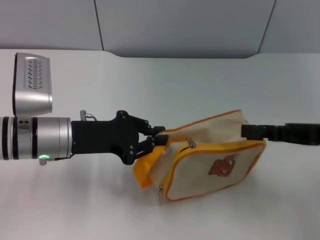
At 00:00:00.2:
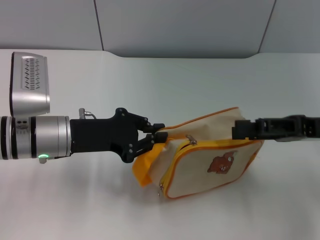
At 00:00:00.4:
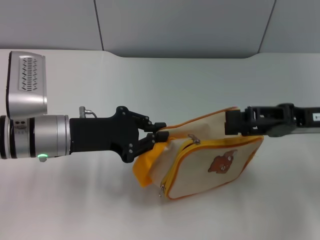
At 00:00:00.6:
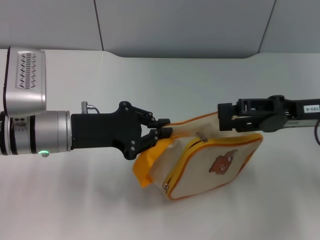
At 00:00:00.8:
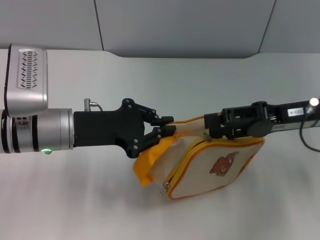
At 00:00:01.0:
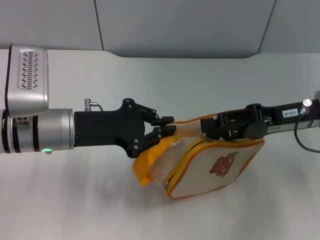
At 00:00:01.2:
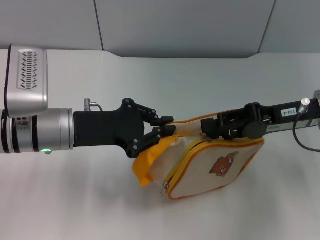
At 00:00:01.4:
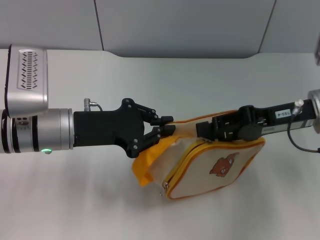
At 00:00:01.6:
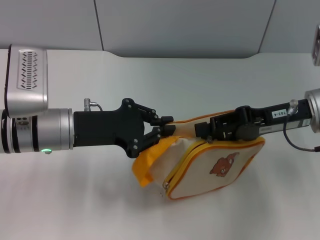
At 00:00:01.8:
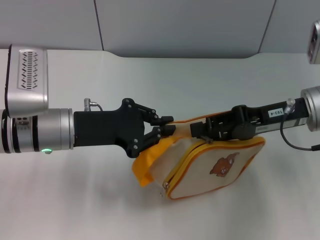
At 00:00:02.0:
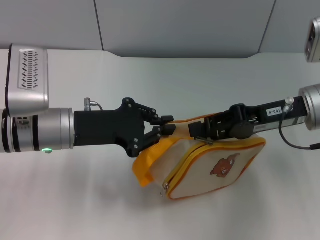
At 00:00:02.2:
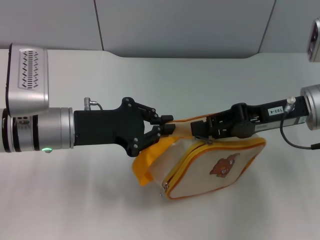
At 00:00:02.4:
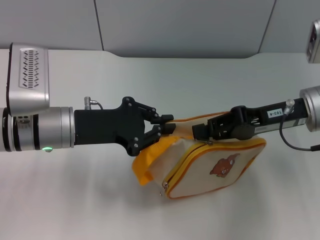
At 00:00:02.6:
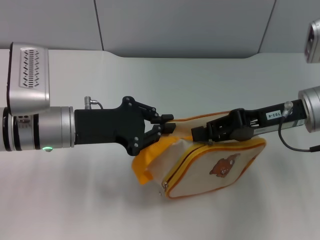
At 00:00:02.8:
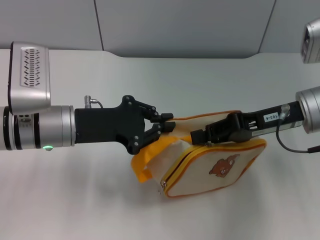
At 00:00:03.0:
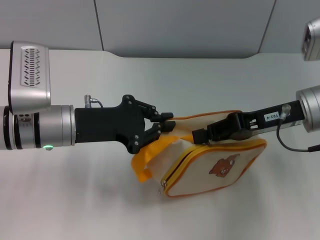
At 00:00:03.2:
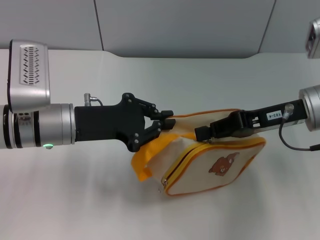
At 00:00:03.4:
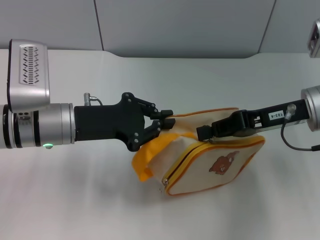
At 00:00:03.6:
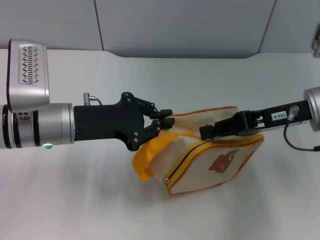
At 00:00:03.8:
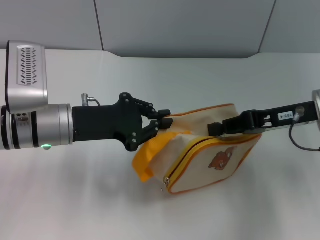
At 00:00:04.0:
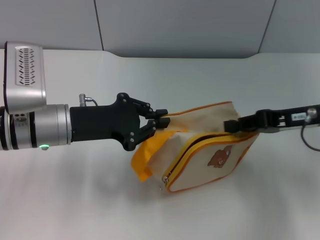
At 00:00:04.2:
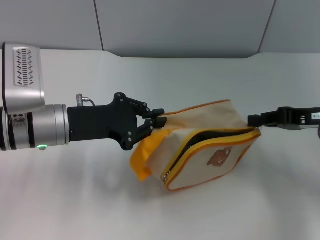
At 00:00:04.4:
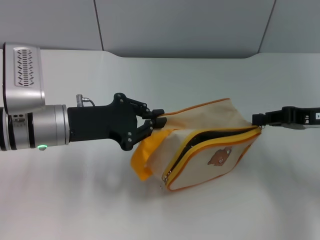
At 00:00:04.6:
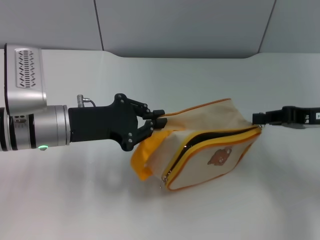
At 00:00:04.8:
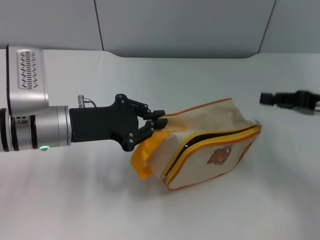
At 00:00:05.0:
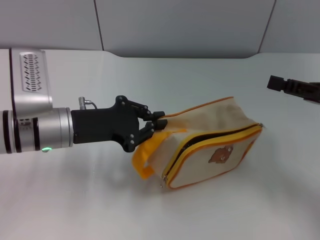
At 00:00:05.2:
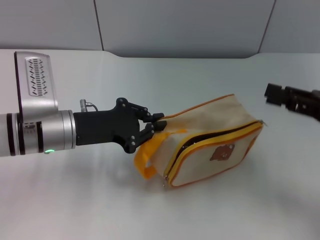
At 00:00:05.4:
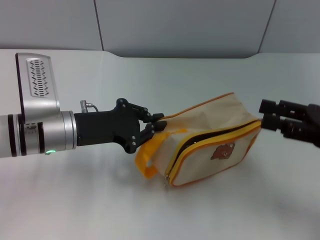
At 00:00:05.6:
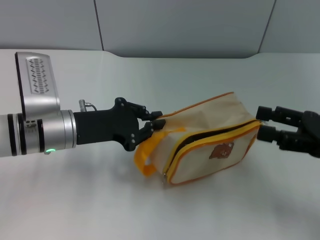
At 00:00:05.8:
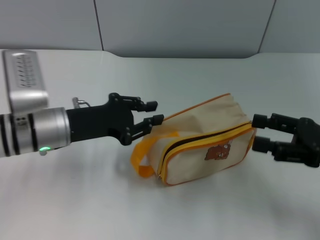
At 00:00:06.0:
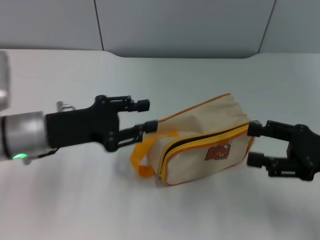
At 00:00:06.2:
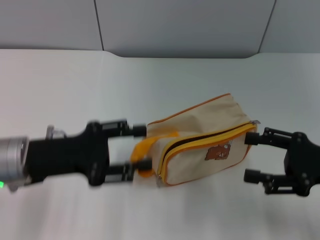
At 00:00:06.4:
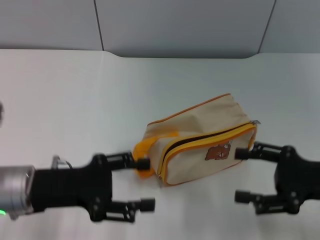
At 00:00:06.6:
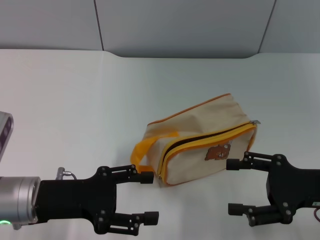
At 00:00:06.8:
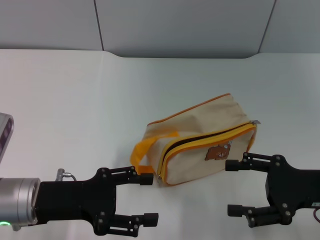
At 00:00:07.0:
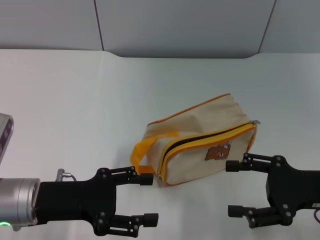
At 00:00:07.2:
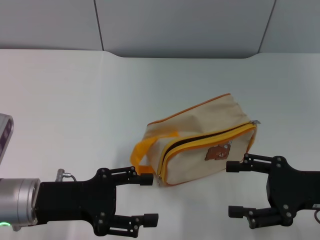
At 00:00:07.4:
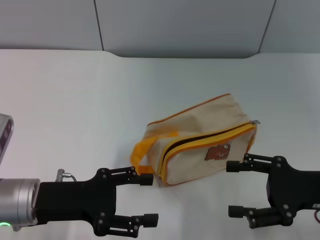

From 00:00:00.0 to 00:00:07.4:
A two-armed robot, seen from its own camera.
Step, from 00:00:00.8 to 00:00:04.6: Unzip the zipper of bag with right gripper.
Step, from 00:00:05.0 to 00:00:05.8: Place the bag on the table with left gripper.
From 00:00:00.0 to 00:00:01.4: The right gripper is displaced to the left by roughly 5 cm.
From 00:00:01.4 to 00:00:03.0: The right gripper closes.
From 00:00:03.0 to 00:00:04.4: The right gripper heads to the right, covering about 10 cm.
From 00:00:04.4 to 00:00:06.0: The right gripper is displaced backward by approximately 5 cm, and opens up.
From 00:00:06.0 to 00:00:07.4: The left gripper goes roughly 5 cm backward, and opens.
